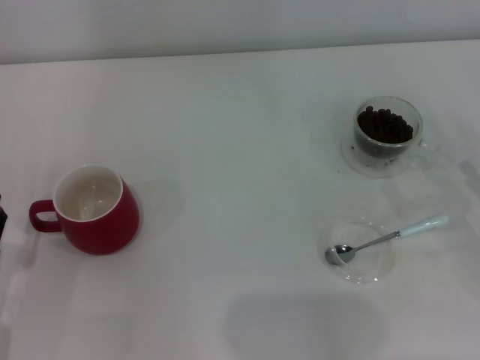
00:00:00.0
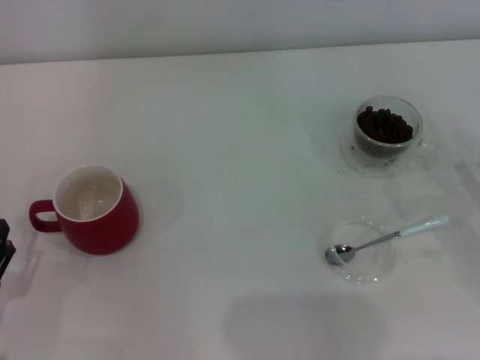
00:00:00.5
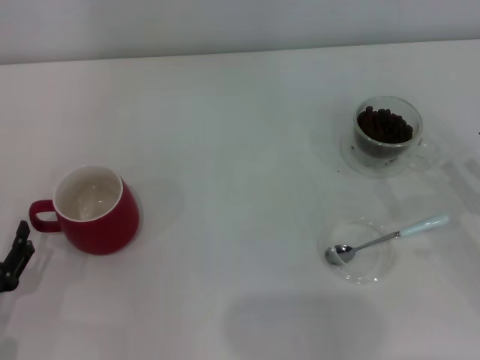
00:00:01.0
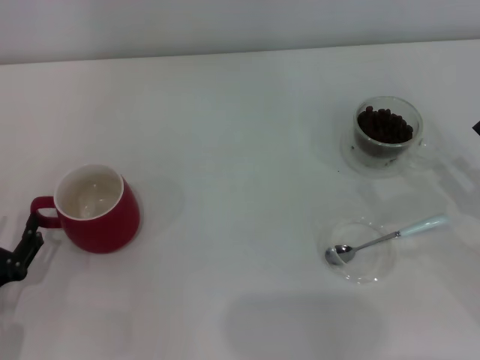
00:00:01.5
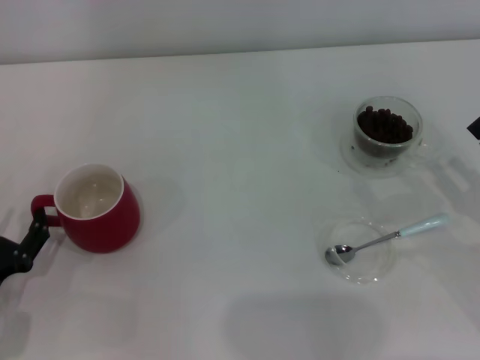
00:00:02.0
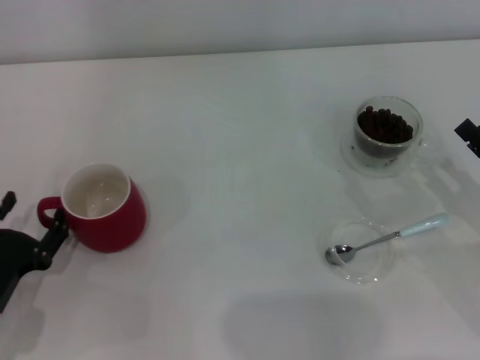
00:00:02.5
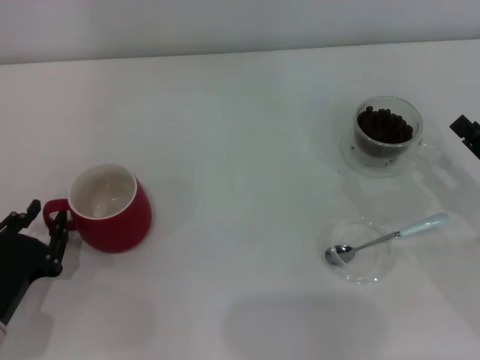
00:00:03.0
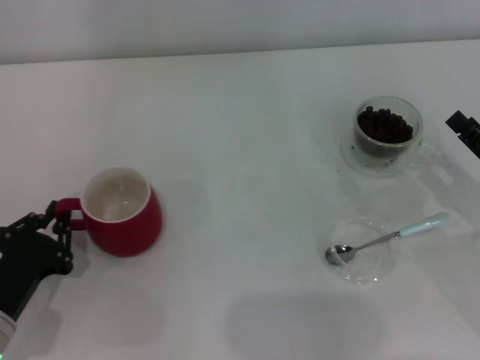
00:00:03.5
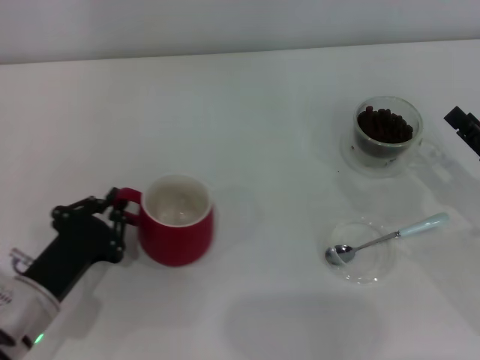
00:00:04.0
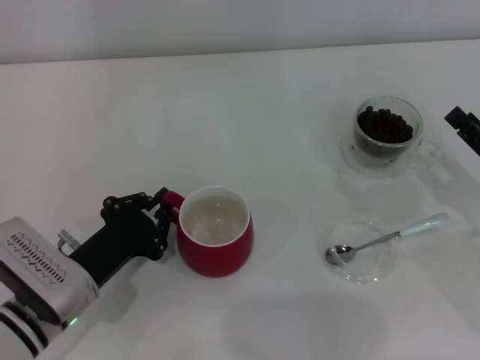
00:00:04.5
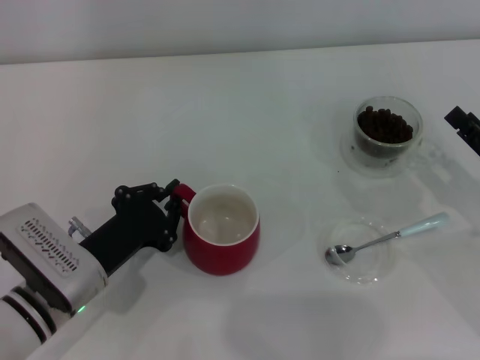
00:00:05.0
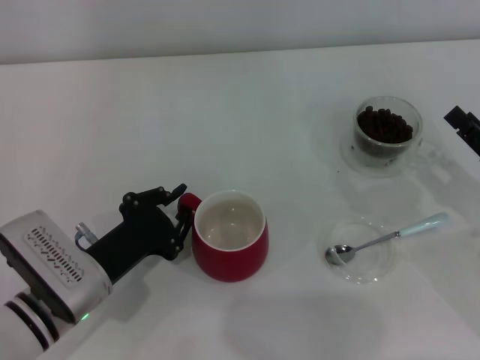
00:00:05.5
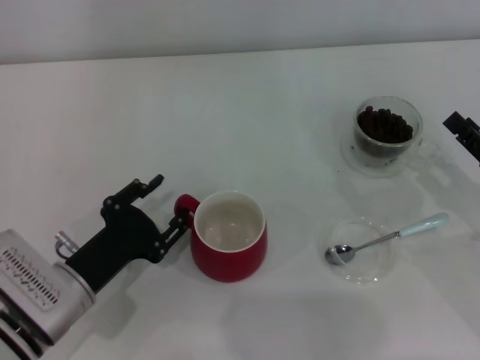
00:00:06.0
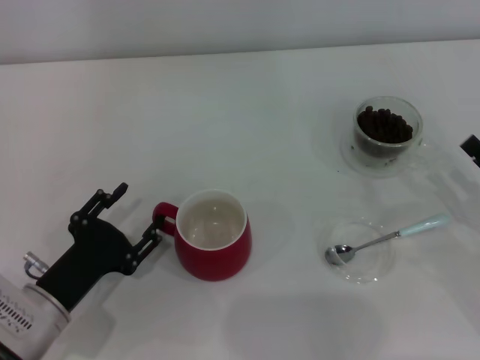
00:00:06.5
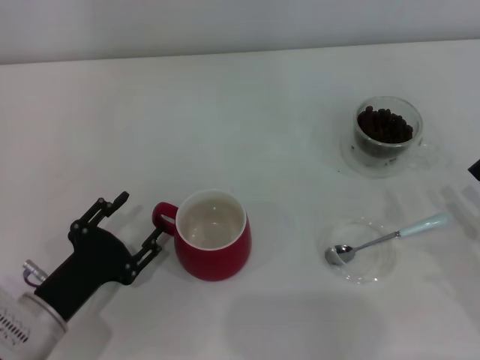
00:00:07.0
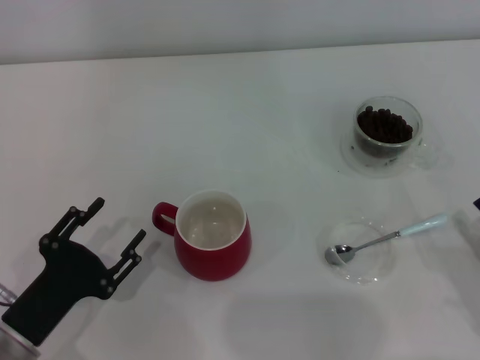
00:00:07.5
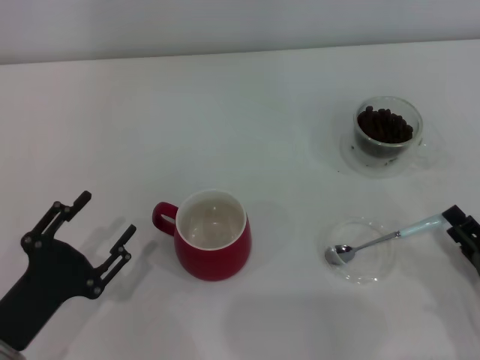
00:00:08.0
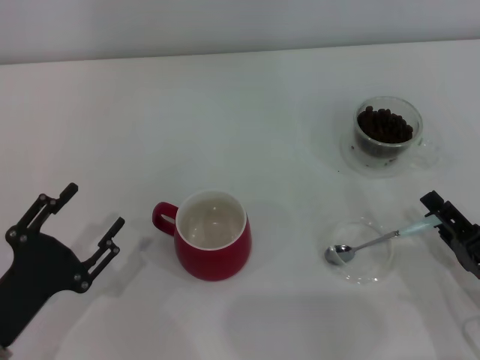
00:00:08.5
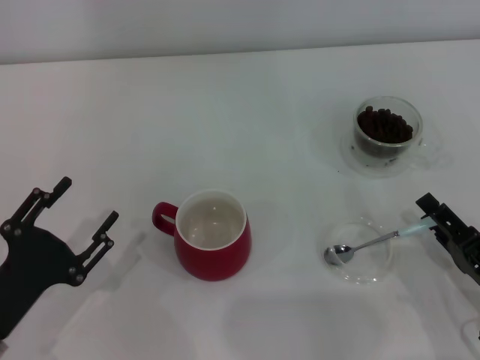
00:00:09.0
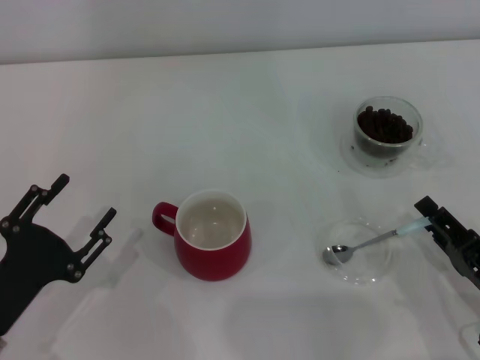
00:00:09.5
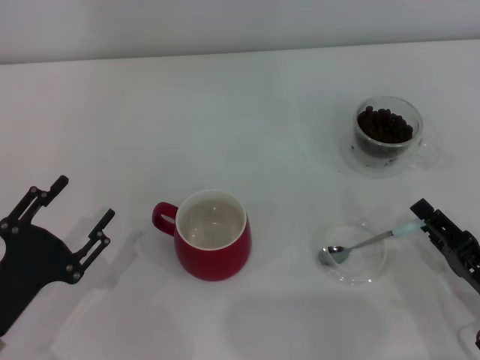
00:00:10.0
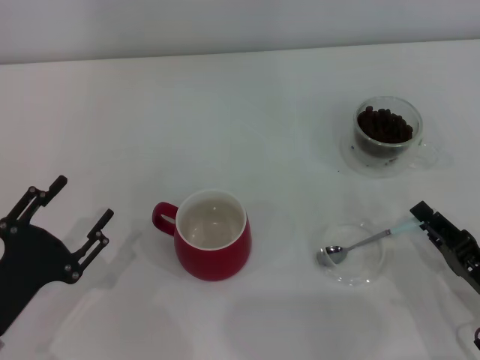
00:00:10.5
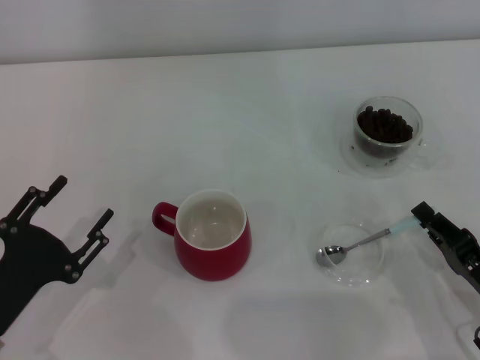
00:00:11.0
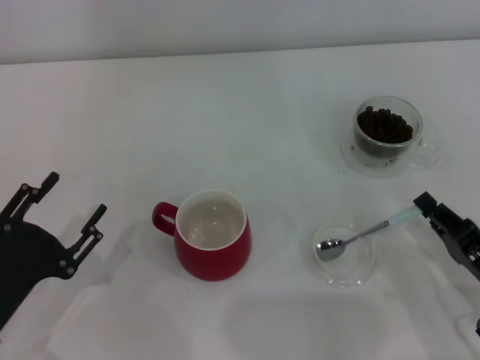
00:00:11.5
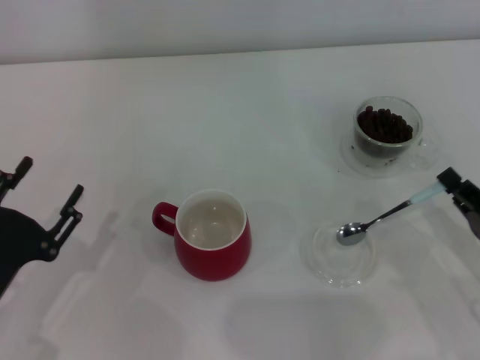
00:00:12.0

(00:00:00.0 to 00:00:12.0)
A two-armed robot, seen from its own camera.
Task of the whole recording: Use a blue spoon to take out the coffee beans from the glass and pour them into the red cup.
Step, 00:00:00.0 - 00:00:07.0: Move the cup to the center of view with the left gripper.
00:00:00.0 - 00:00:02.0: There are only small adjustments of the grippers.
00:00:02.0 - 00:00:04.0: The left gripper heads to the right, covering some 5 cm, and closes its fingers.
00:00:04.0 - 00:00:06.0: The grippers move only a little.
00:00:06.0 - 00:00:08.0: The right gripper shifts roughly 10 cm backward, while the left gripper is displaced backward and to the left by approximately 10 cm, and opens its fingers.
00:00:08.0 - 00:00:10.0: The grippers stay close to where they were, moving slightly.
00:00:10.0 - 00:00:12.0: The right gripper closes.

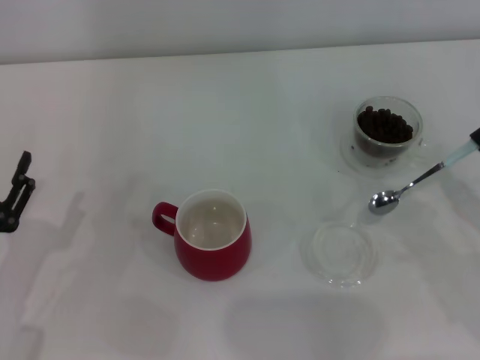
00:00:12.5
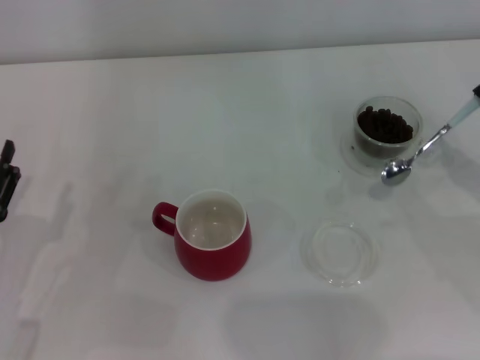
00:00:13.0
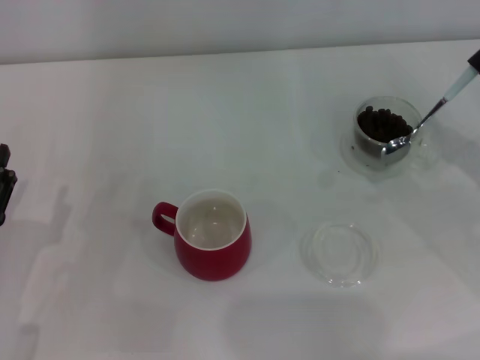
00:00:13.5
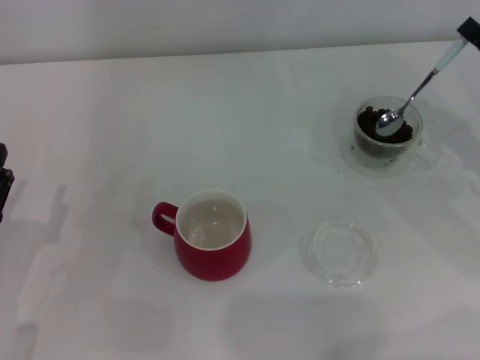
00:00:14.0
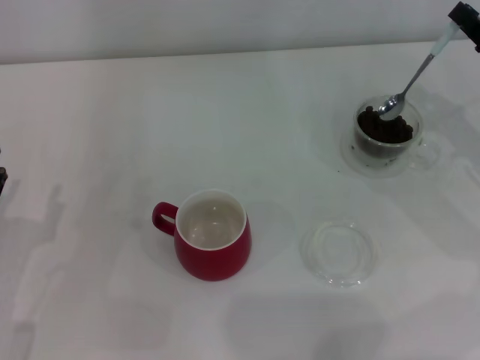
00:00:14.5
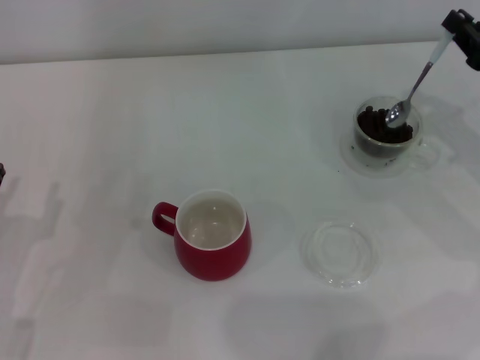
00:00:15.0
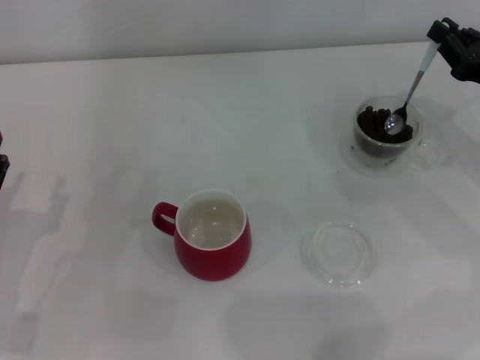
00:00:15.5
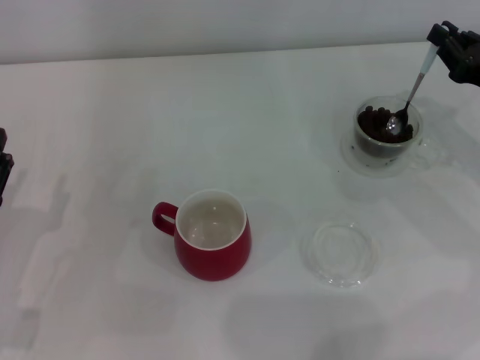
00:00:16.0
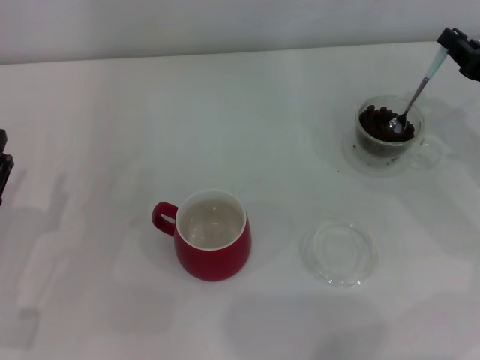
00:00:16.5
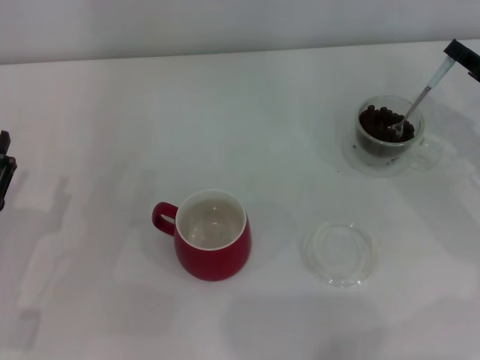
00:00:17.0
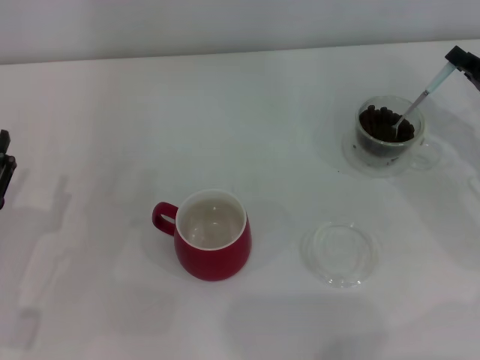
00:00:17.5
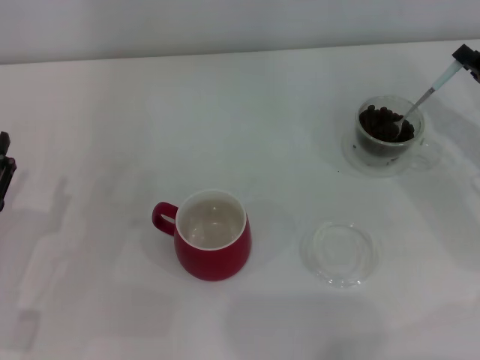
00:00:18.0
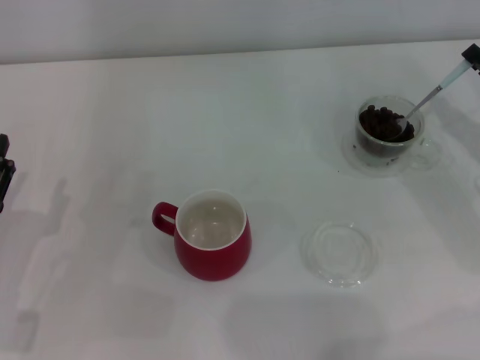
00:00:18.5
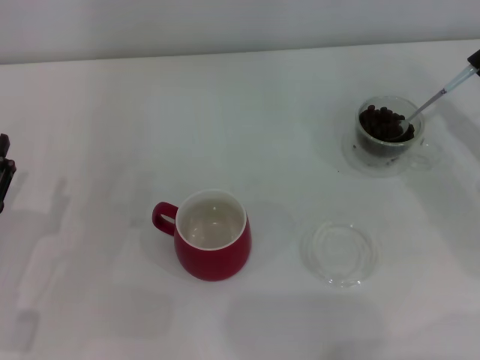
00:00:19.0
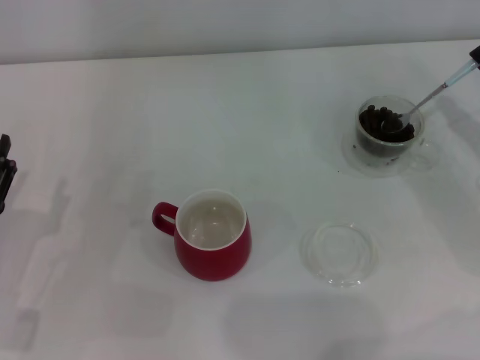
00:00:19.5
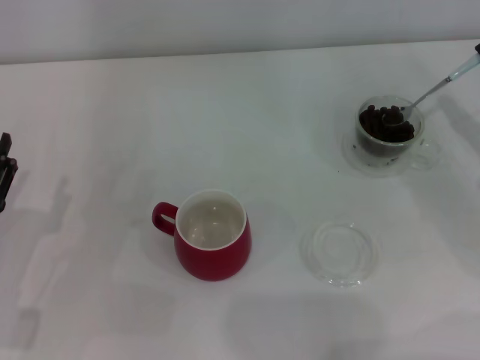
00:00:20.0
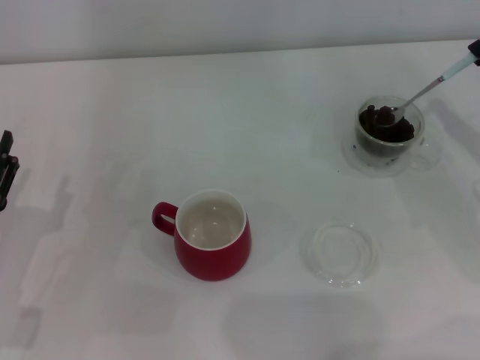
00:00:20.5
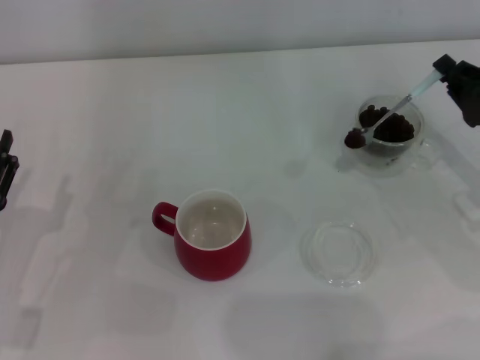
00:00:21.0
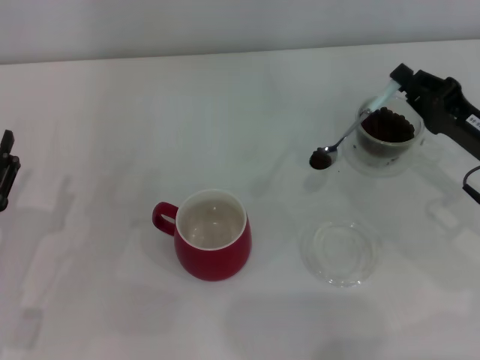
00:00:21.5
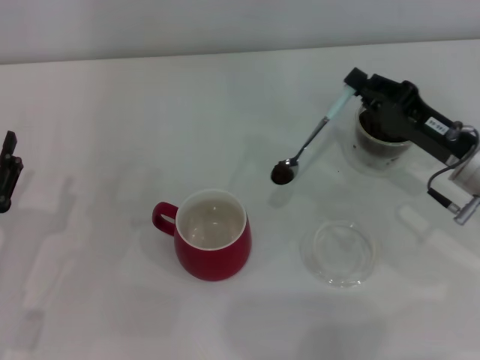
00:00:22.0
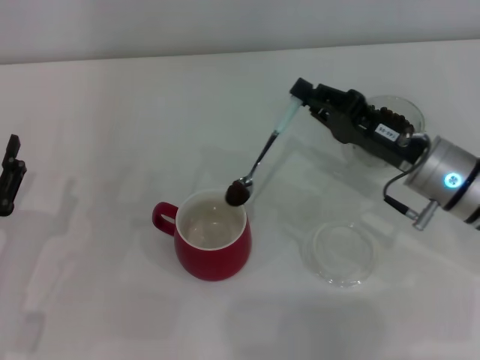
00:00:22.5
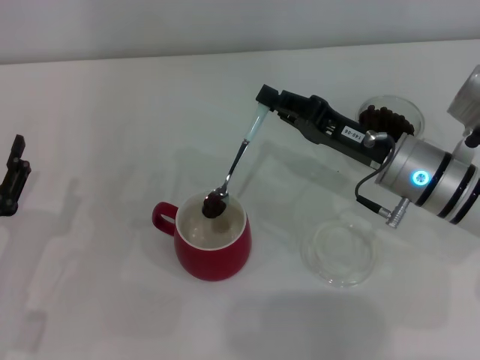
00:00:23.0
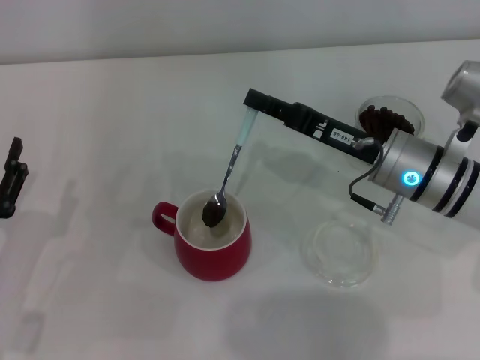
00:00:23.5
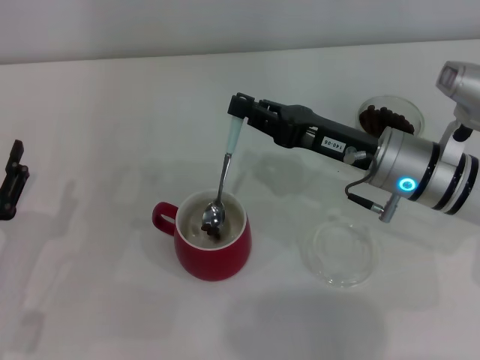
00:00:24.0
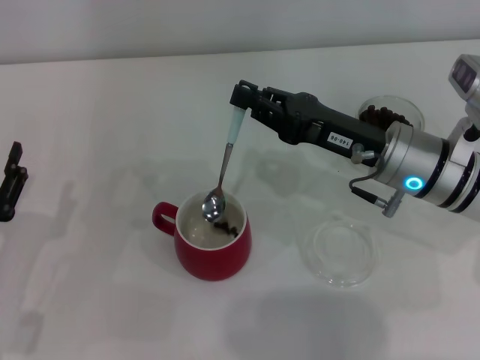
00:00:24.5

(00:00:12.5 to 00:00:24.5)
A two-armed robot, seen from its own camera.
Task of the whole recording: Use a blue spoon to take out the coffee beans from the glass and pour them into the red cup.
00:00:12.5 - 00:00:14.5: The right gripper travels forward and upward by roughly 15 cm.
00:00:14.5 - 00:00:16.5: There are only small adjustments of the grippers.
00:00:20.5 - 00:00:22.5: The right gripper travels to the left by approximately 15 cm.

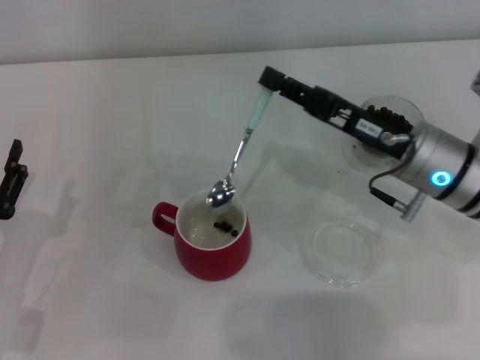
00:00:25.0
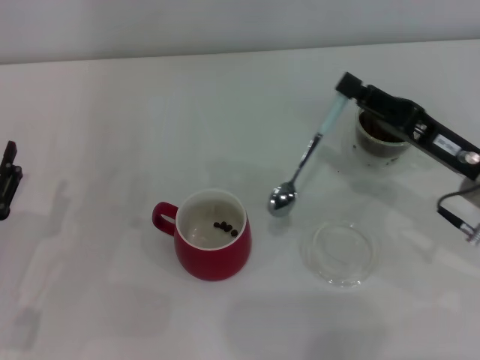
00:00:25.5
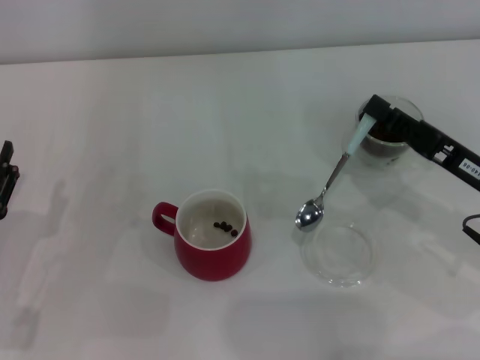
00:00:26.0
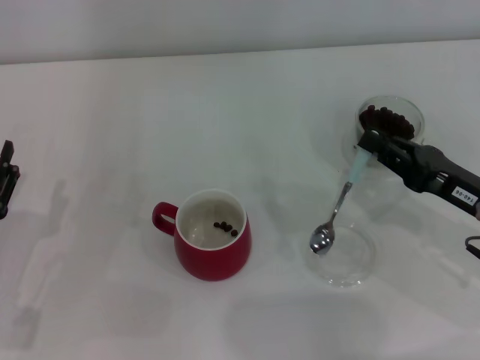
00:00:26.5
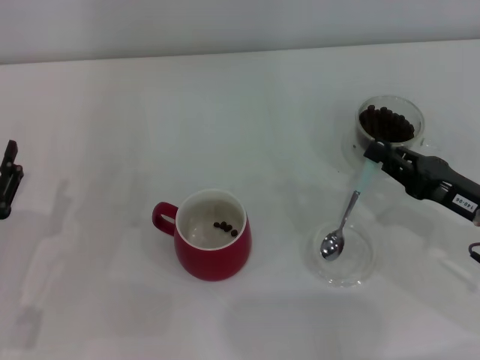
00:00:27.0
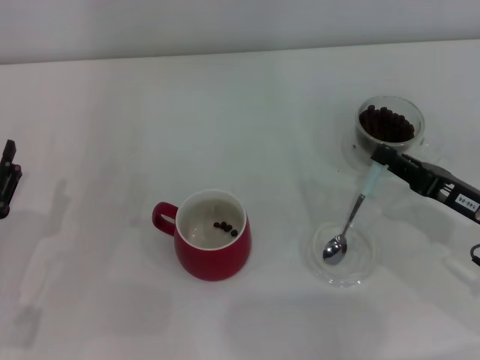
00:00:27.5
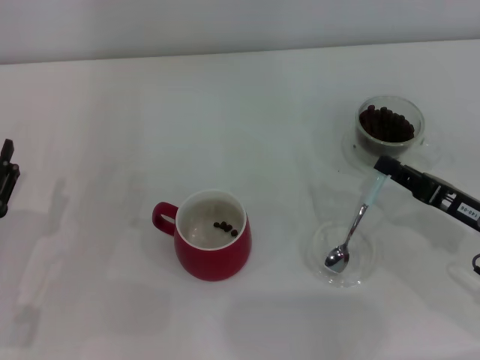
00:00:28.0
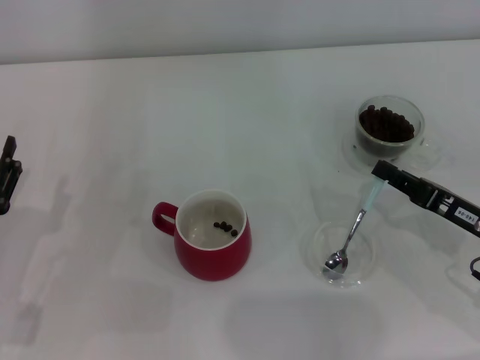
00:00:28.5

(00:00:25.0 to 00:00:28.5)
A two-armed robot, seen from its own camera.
Task of the whole recording: Use a blue spoon to take out the coffee beans from the glass and pour them into the red cup.
00:00:25.0 - 00:00:27.0: The right gripper travels to the right and backward by approximately 10 cm.
00:00:27.0 - 00:00:28.5: The grippers stay close to where they were, moving slightly.
